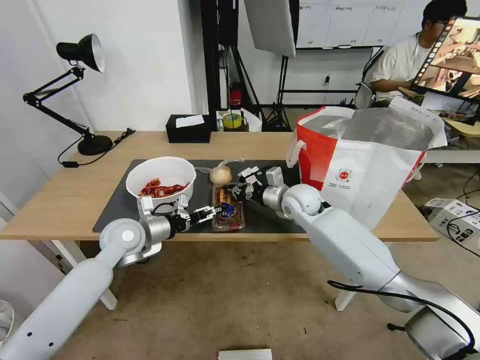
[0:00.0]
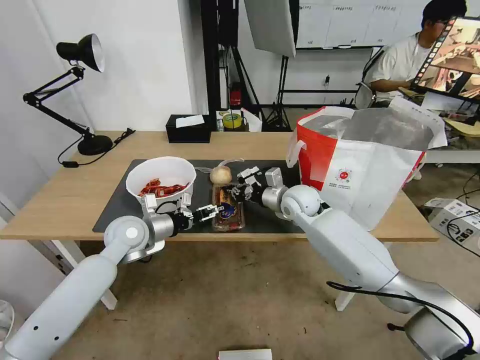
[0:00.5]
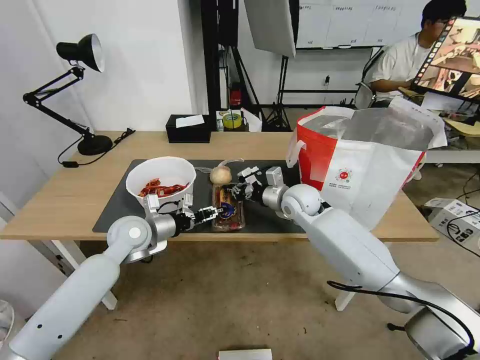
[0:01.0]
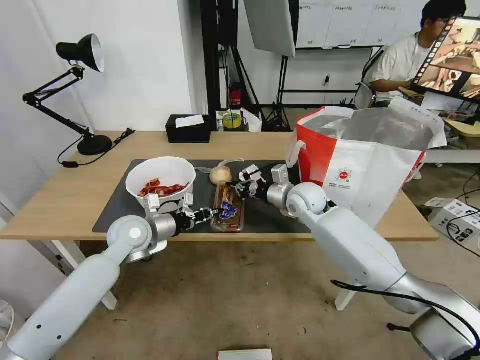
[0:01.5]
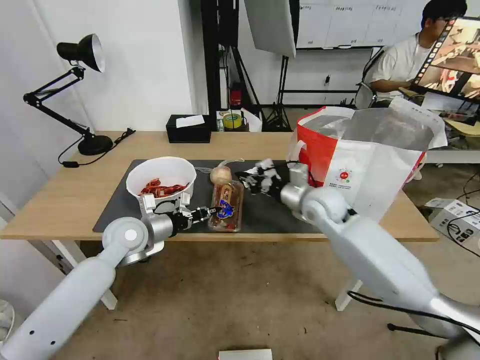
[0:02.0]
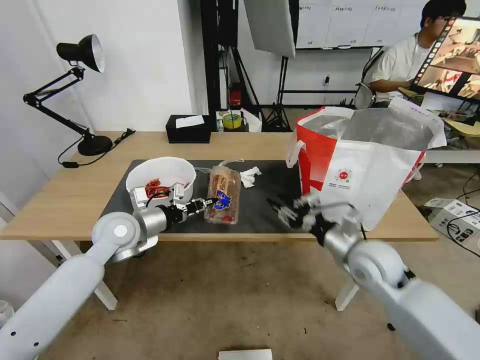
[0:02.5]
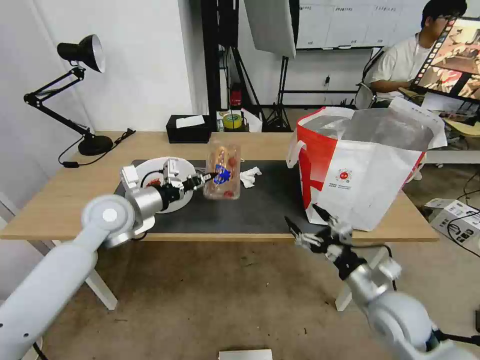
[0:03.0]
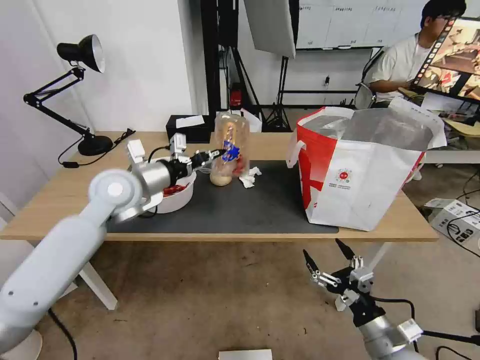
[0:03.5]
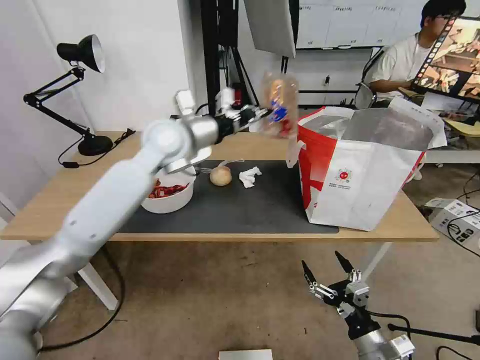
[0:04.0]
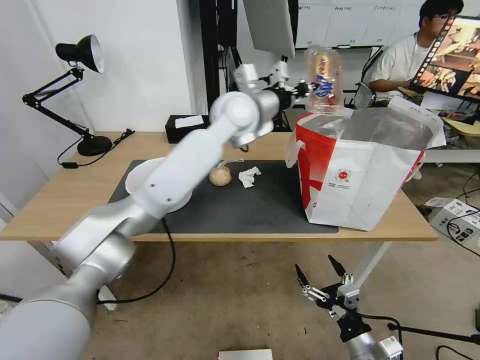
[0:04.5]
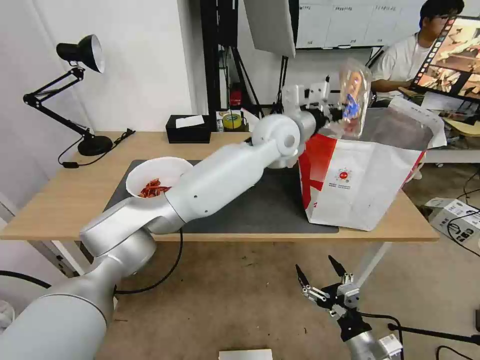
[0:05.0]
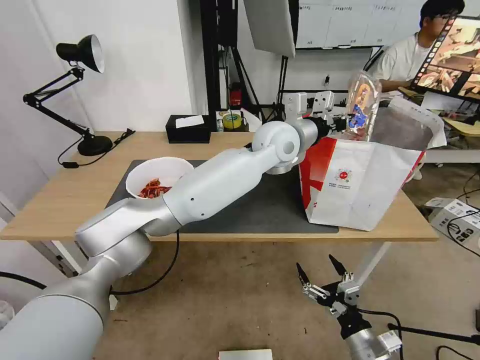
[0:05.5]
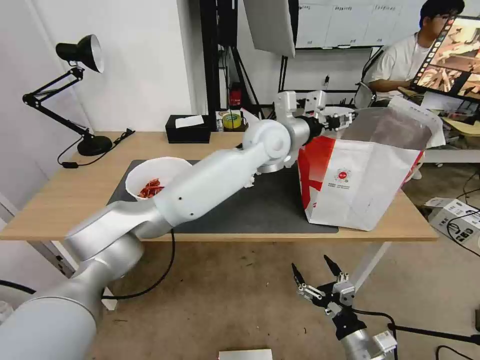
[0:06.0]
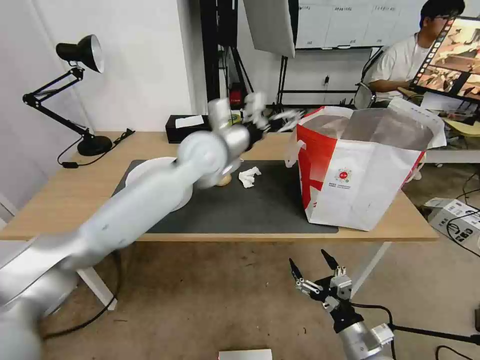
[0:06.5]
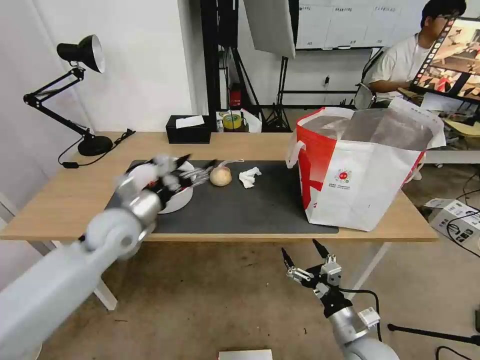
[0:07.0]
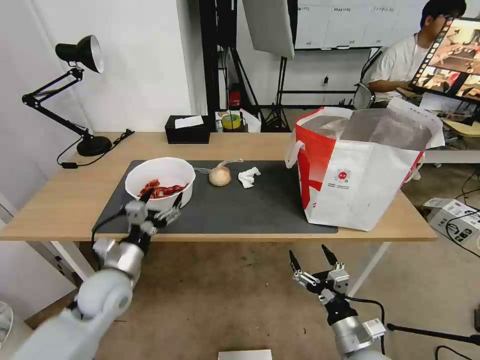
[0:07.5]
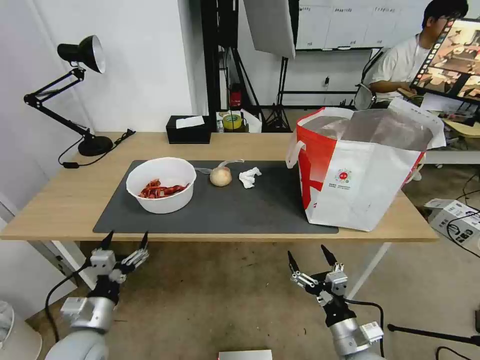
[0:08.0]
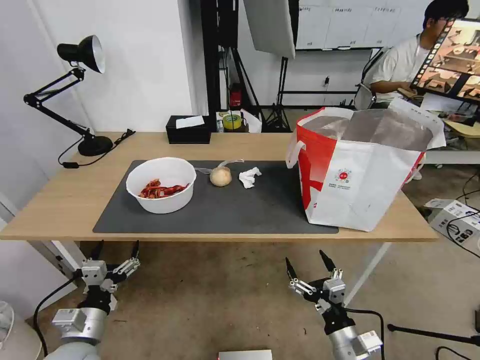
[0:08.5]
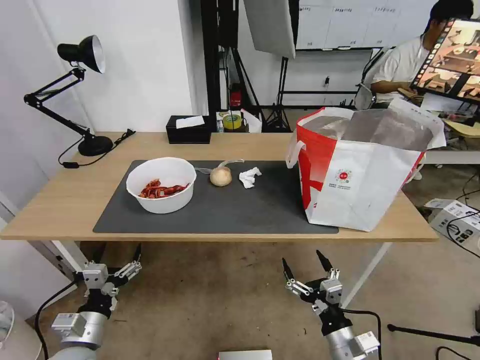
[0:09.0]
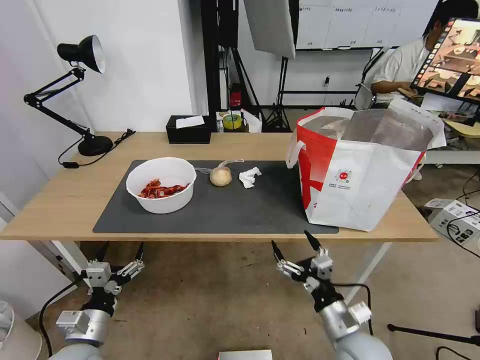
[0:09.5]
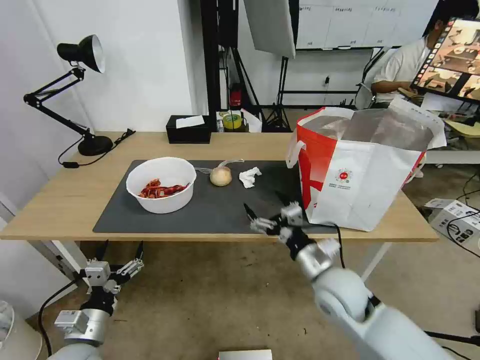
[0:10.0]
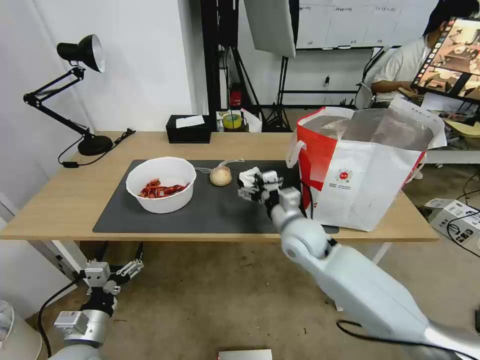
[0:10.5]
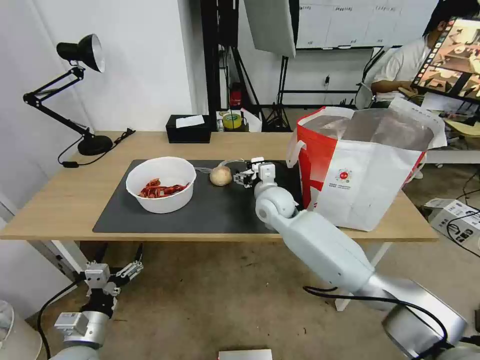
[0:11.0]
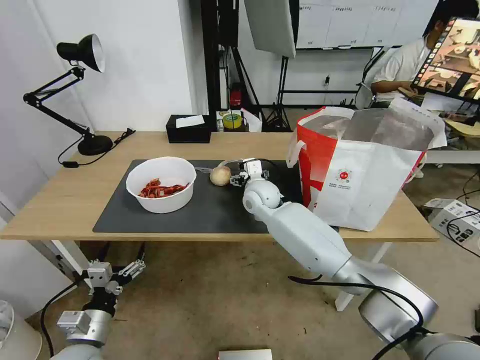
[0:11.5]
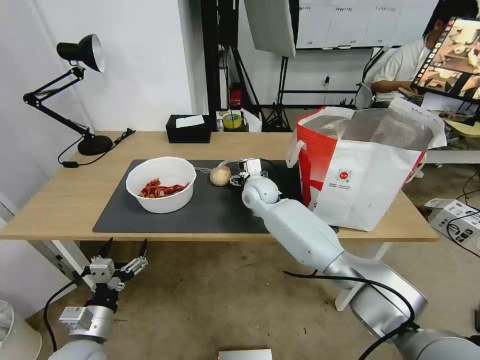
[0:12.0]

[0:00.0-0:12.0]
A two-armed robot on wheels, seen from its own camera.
Task of the whole recording: Pick up the trash from the table and place it into the takeout bag.
0:00.0 to 0:02.0: The left gripper closes up. Meanwhile the right gripper goes approximately 5 cm backward.
0:02.0 to 0:04.0: The left gripper shifts some 25 cm upward, to the right and forward. The right gripper heads backward and downward, covering roughly 35 cm, and opens its fingers.
0:04.0 to 0:06.0: The left gripper travels to the right by about 20 cm, and opens its fingers.
0:06.0 to 0:08.0: The left gripper goes about 60 cm to the left, backward and downward, and opens its fingers.
0:08.0 to 0:10.0: The right gripper goes some 15 cm forward and upward.
0:10.0 to 0:12.0: The right gripper goes some 30 cm forward and to the left.

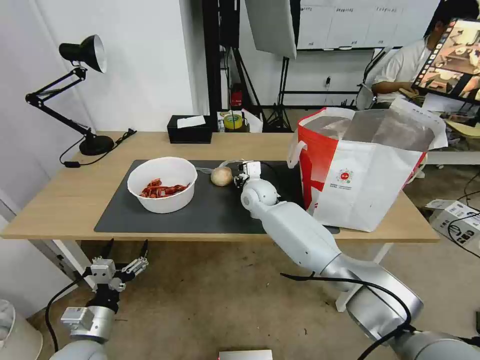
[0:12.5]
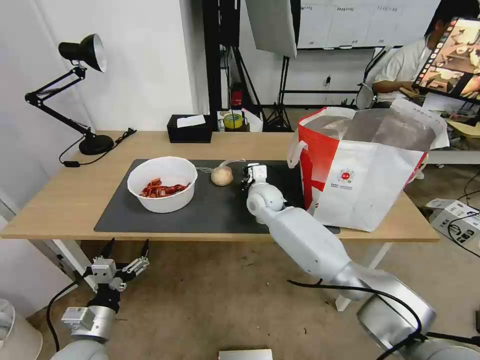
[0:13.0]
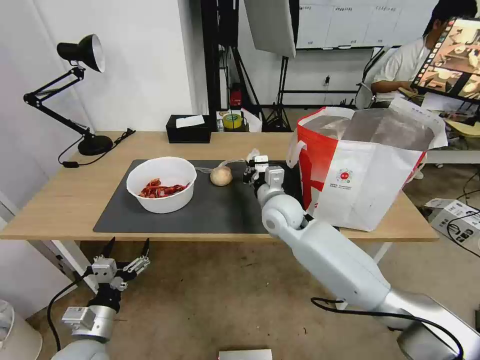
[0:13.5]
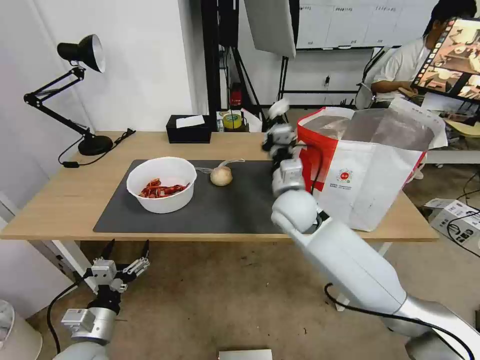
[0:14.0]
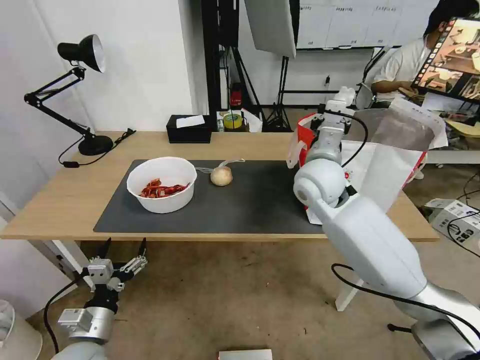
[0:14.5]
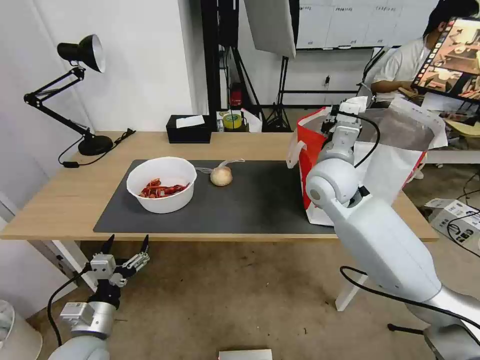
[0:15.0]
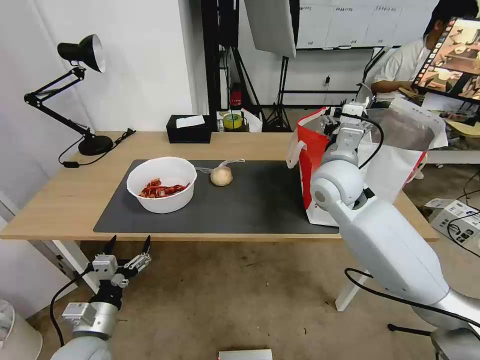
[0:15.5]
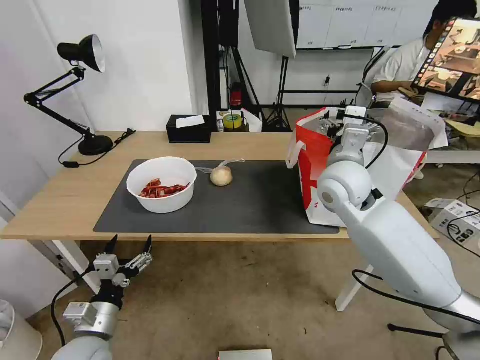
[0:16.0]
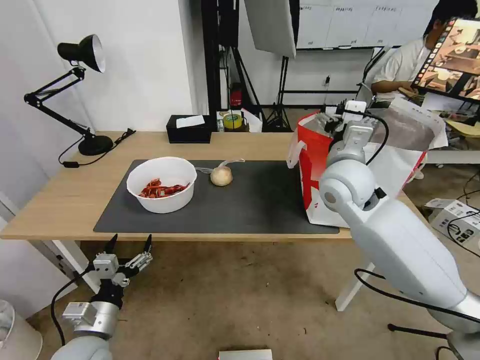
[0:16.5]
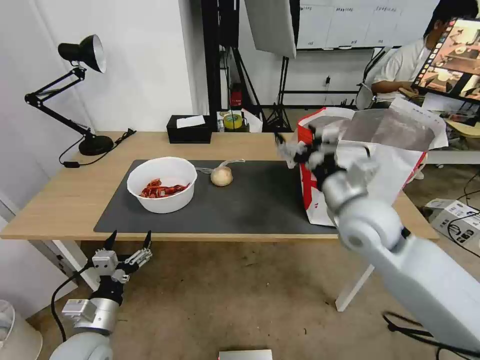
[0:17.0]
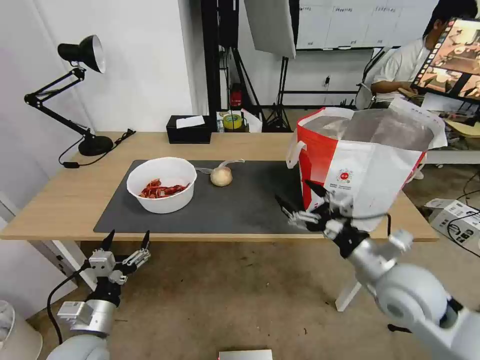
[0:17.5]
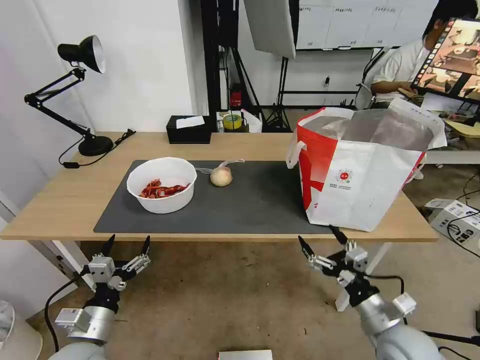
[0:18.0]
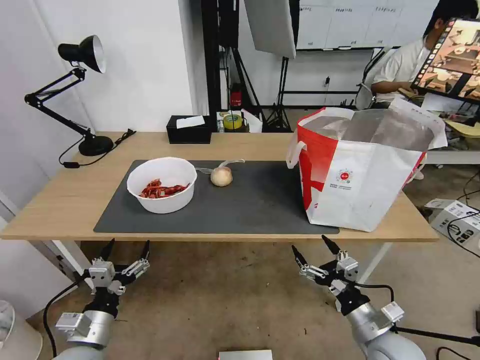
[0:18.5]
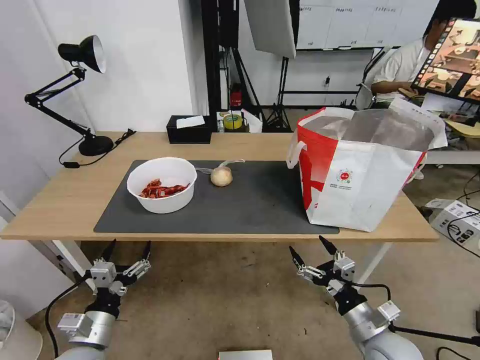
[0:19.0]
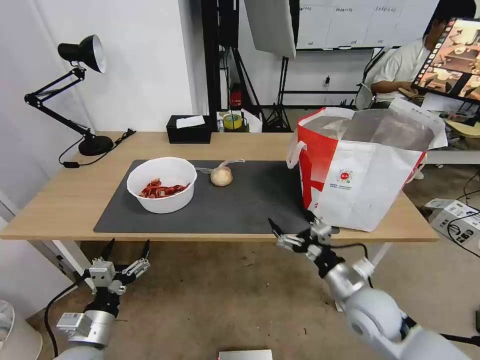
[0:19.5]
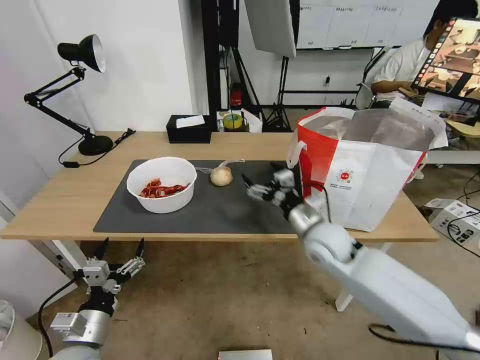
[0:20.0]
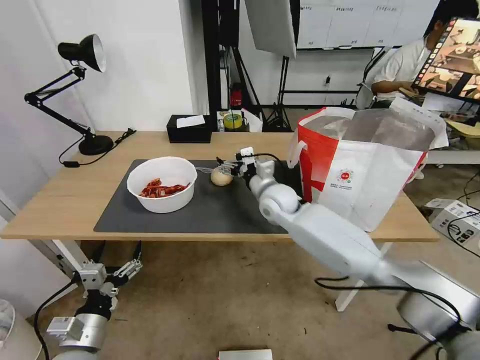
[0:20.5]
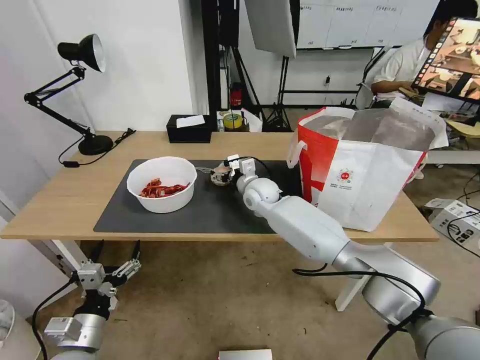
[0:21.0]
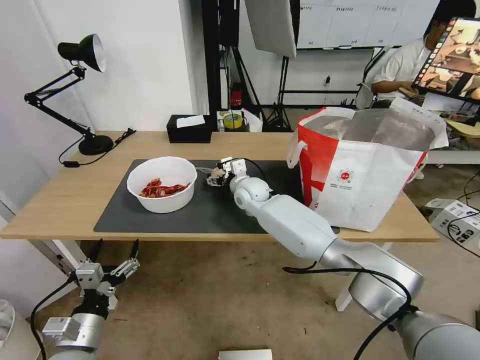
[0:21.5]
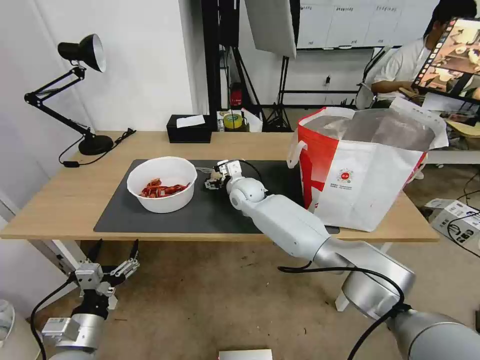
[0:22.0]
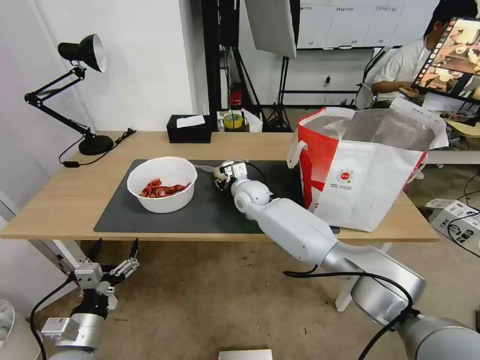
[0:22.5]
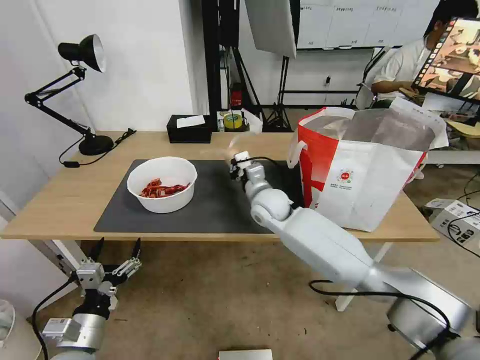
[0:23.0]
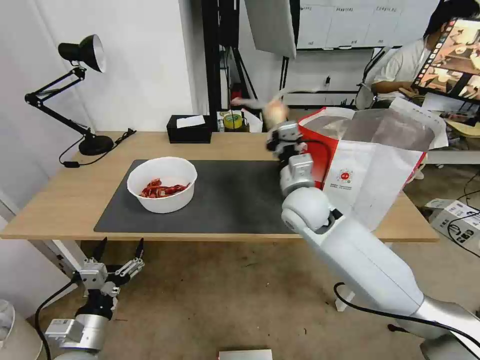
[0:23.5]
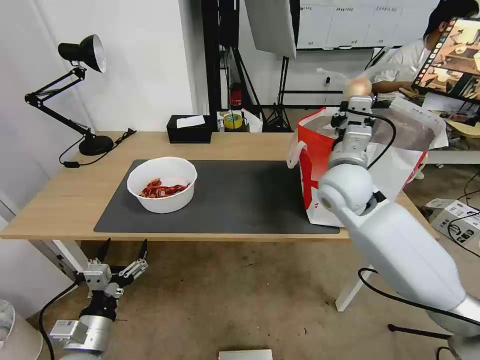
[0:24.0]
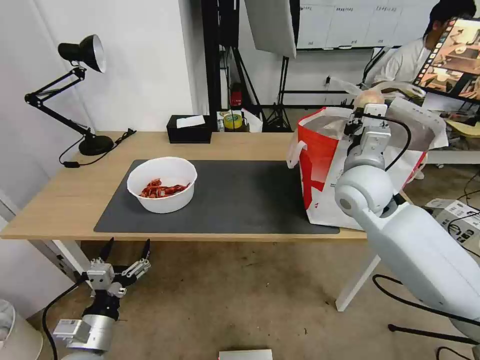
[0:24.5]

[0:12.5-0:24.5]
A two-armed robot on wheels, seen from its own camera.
Task of the whole recording: Pick up the trash from the table and place it into the takeout bag.
0:12.5 to 0:14.5: The right gripper heads upward, to the right and backward, covering roughly 20 cm, and closes.
0:14.5 to 0:16.5: The right gripper opens its fingers.
0:16.5 to 0:18.5: The right gripper goes roughly 35 cm backward and downward.
0:18.5 to 0:20.5: The right gripper moves forward and to the left, approximately 40 cm.
0:20.5 to 0:22.5: The right gripper is displaced to the left by some 5 cm, and closes.
0:22.5 to 0:24.5: The right gripper travels to the right, upward and backward by approximately 30 cm.

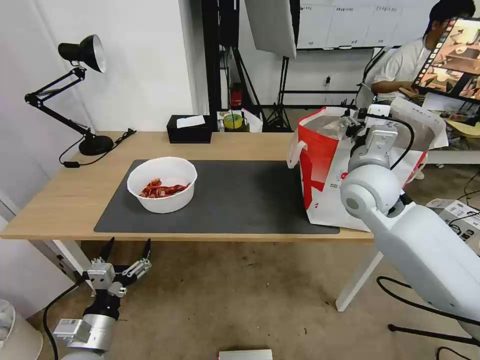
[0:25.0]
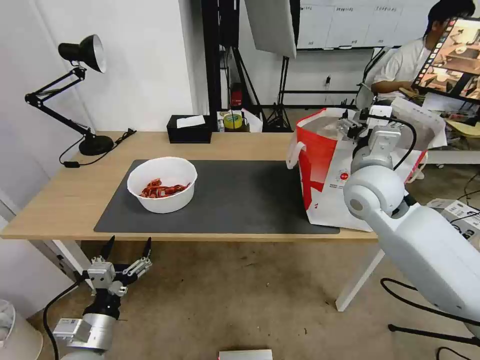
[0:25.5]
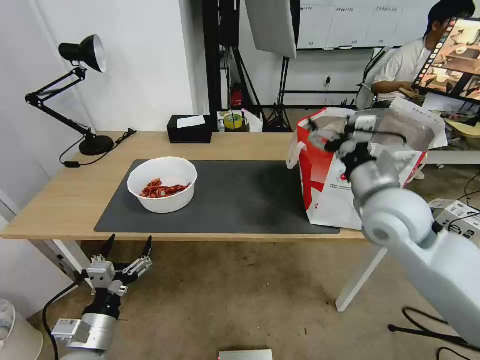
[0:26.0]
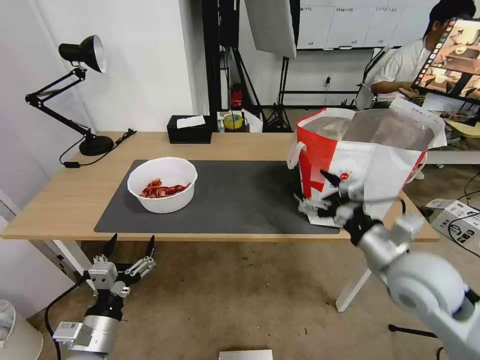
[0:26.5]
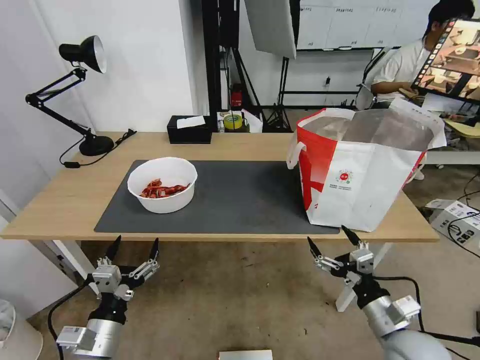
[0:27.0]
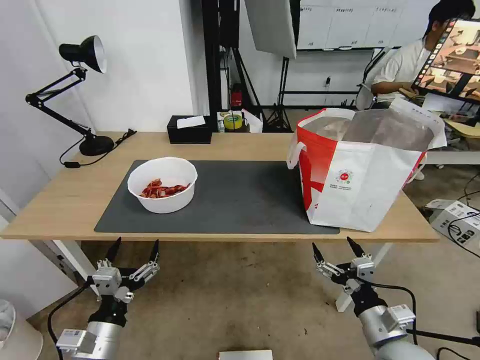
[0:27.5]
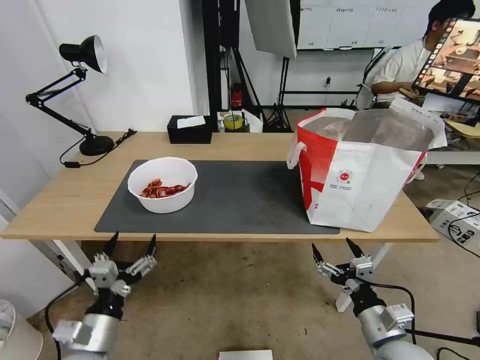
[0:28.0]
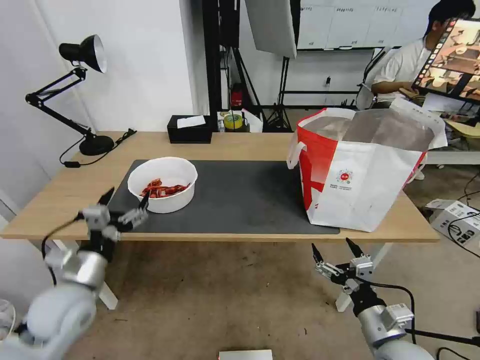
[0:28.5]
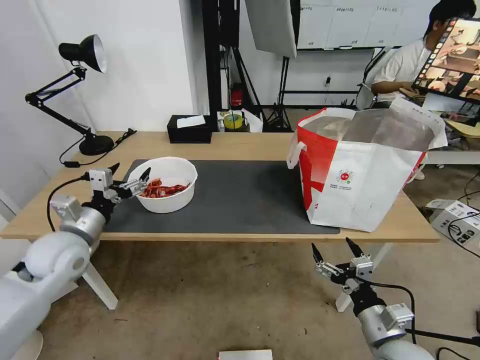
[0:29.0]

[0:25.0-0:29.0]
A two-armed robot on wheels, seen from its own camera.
Task of the whole recording: Pick up the trash from the table and place it into the takeout bag.
0:25.0 to 0:27.0: The right gripper is displaced backward and downward by about 30 cm.
0:27.0 to 0:29.0: The left gripper shifts roughly 25 cm forward, upward and to the left.
